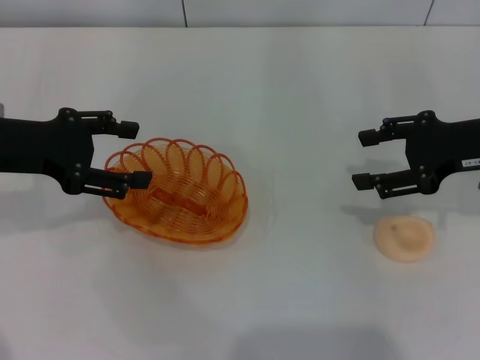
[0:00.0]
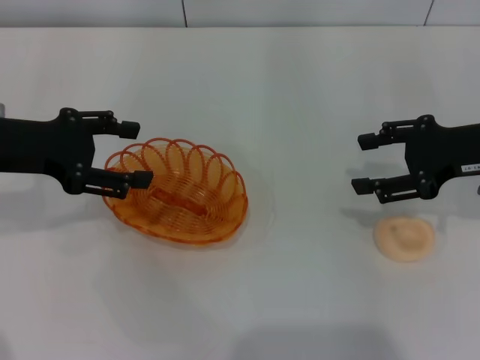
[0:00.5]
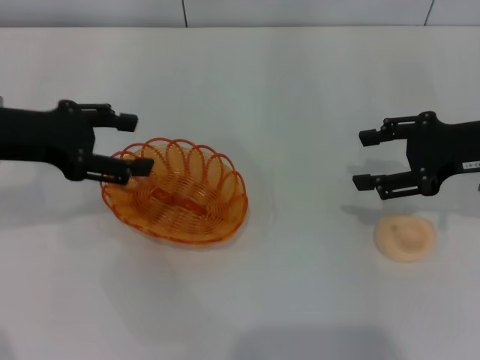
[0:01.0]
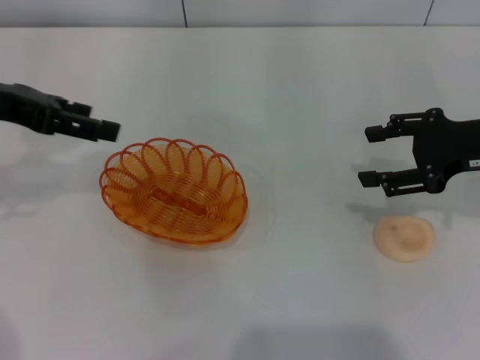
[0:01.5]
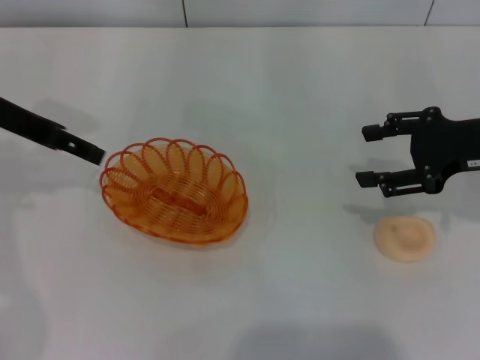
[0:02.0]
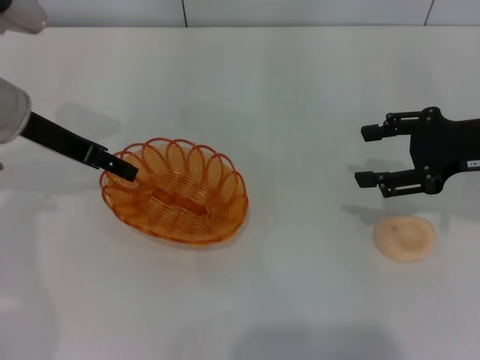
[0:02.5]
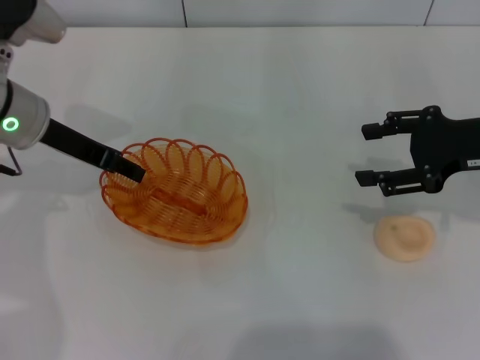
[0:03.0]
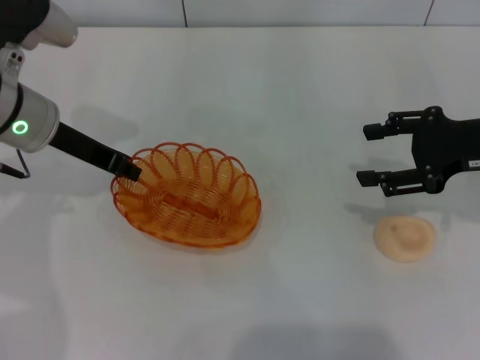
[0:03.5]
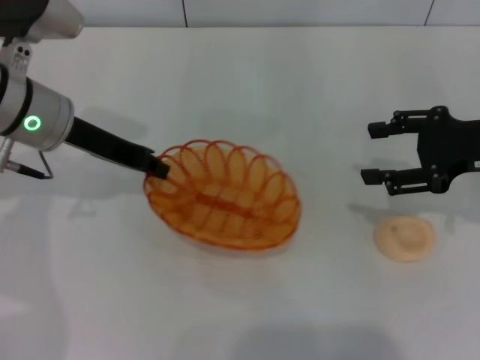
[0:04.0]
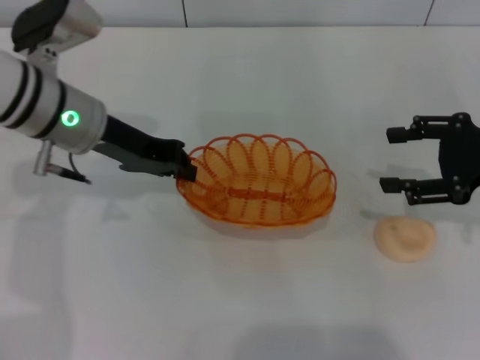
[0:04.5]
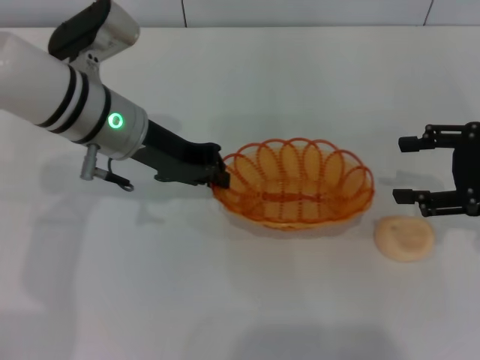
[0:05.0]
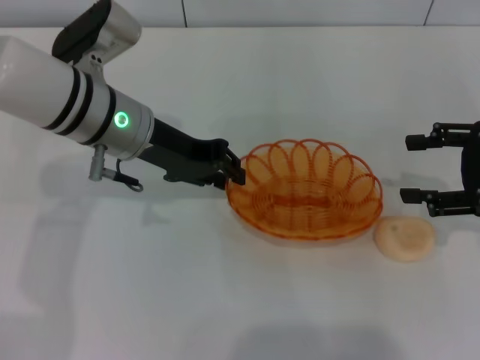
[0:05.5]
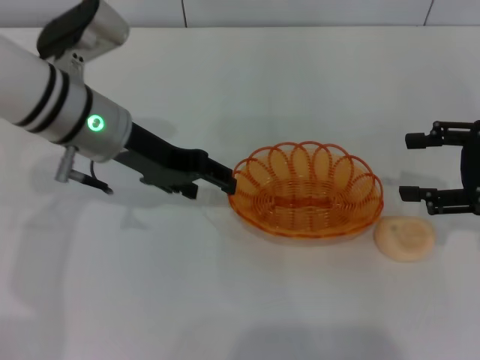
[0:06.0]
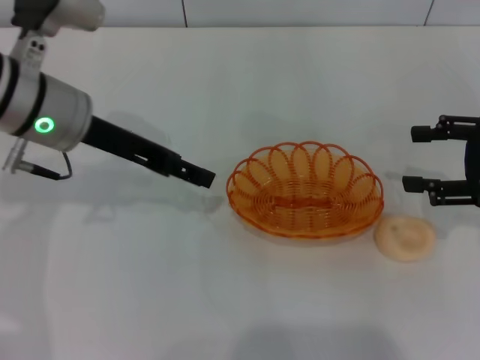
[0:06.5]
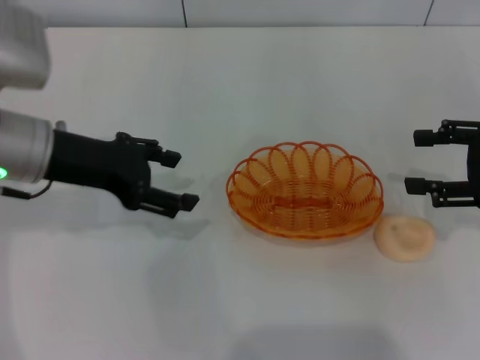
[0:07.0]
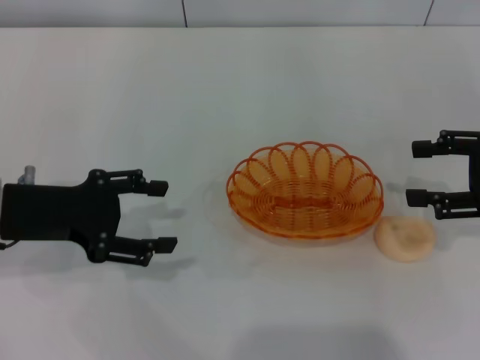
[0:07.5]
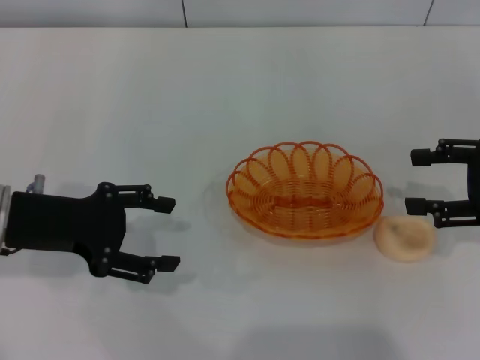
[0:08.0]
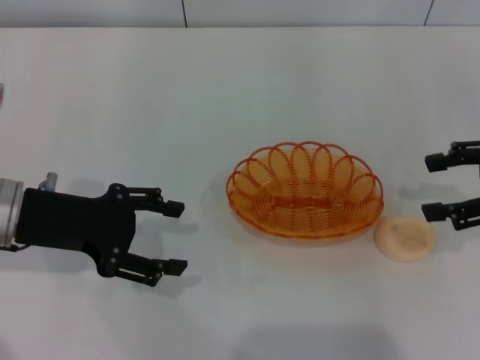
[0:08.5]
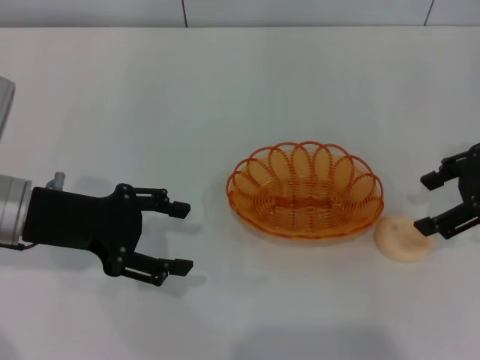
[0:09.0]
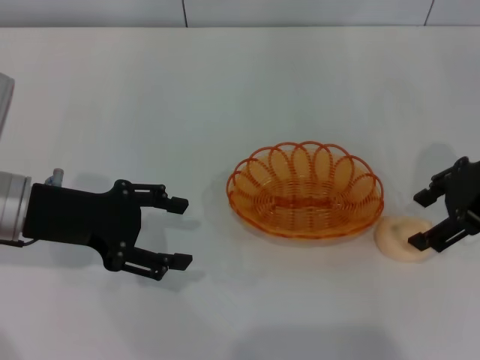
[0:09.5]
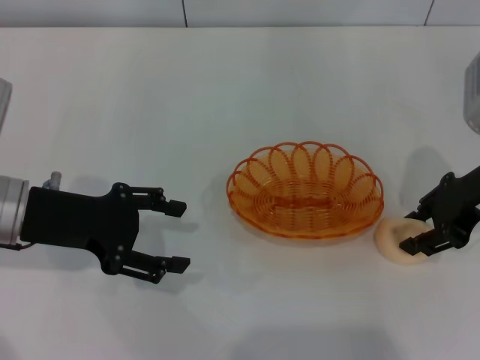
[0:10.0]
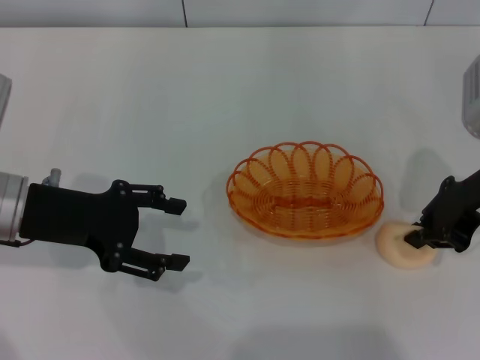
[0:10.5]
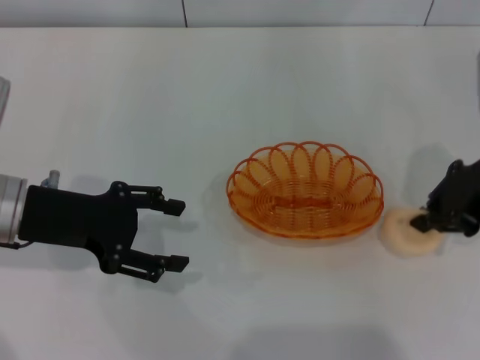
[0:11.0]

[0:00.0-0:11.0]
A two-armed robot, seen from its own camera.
Step, 0:00.0 to 0:04.5: Pick up the basket with the left gripper.
Step, 0:05.0 to 0:06.0: Place the basket in the center of view with the left gripper.
0:00.0 to 0:02.0: The left gripper moves about 5 cm.
0:02.0 to 0:03.5: The left gripper is displaced downward and to the right by about 10 cm, and closes up.
0:03.5 to 0:05.5: The right gripper ends up some 5 cm from where it was. The left gripper moves to the right, approximately 10 cm.
0:05.5 to 0:07.5: The left gripper moves to the left and backward, roughly 15 cm, and opens up.
0:07.5 to 0:09.0: The right gripper changes place by about 5 cm.
0:09.0 to 0:11.0: The right gripper closes.

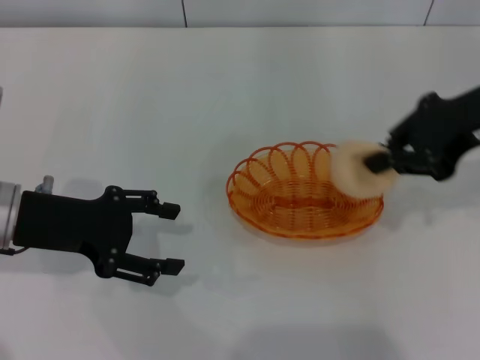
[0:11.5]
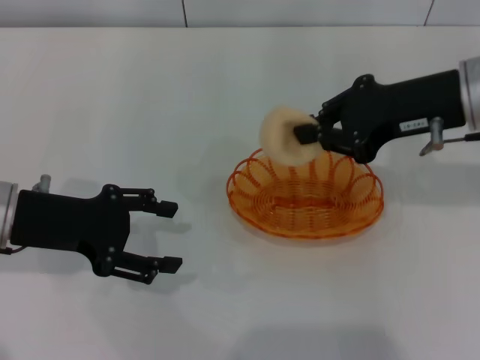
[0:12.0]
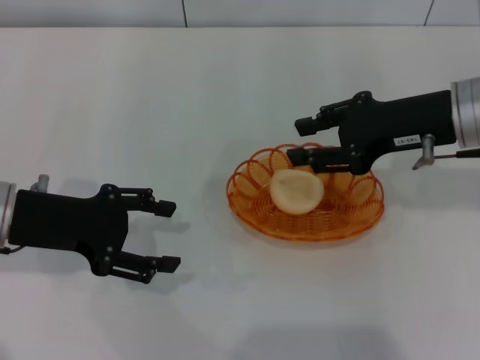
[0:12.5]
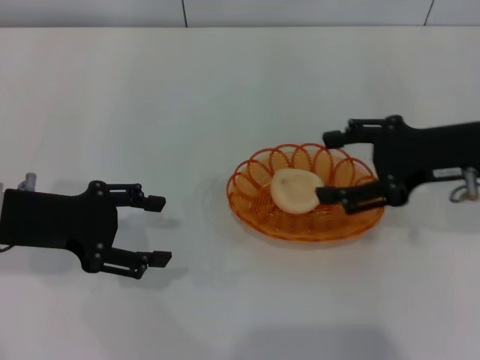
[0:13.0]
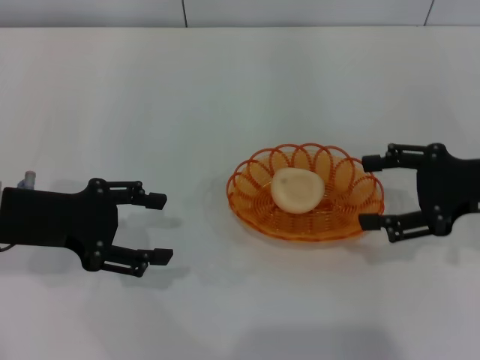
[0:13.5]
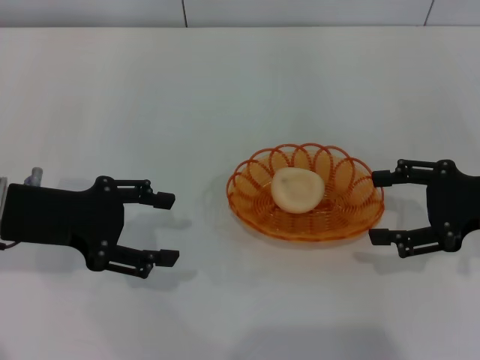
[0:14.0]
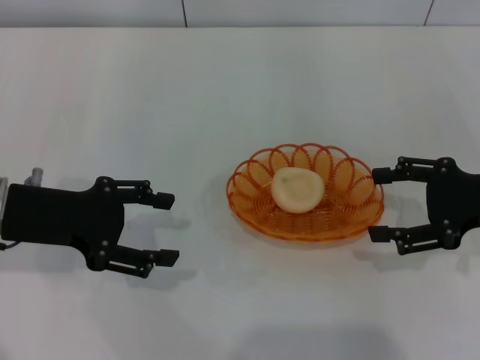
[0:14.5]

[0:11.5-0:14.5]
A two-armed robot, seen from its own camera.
Step, 0:11.5 to 0:13.0: Place the egg yolk pastry into the basket with the right gripper.
0:11.5 to 0:13.0: The right gripper is displaced downward by some 10 cm, and opens up.
0:13.0 to 0:14.5: The right gripper shifts some 5 cm to the right.
